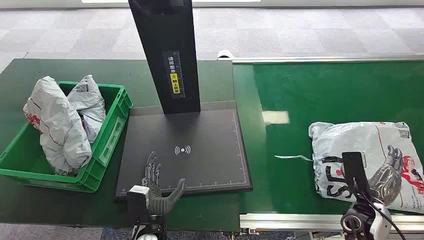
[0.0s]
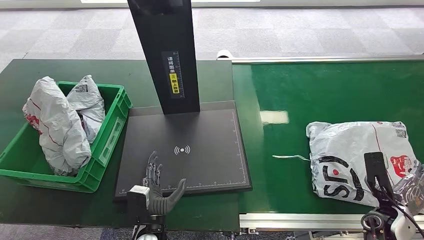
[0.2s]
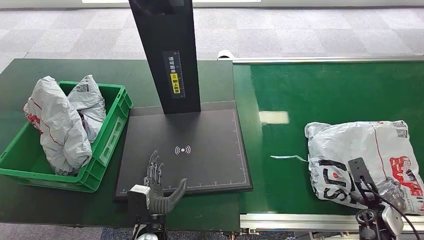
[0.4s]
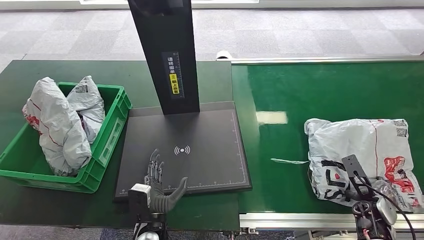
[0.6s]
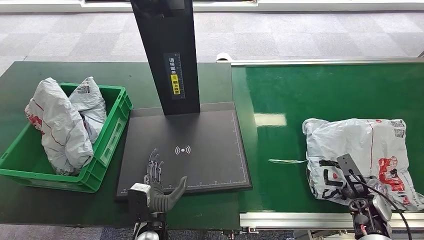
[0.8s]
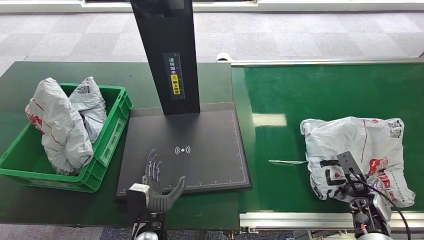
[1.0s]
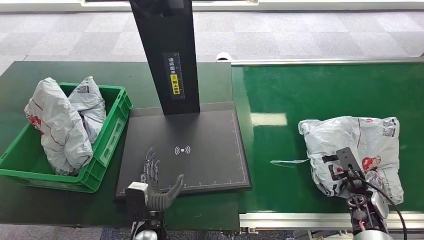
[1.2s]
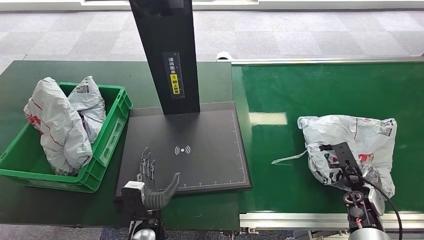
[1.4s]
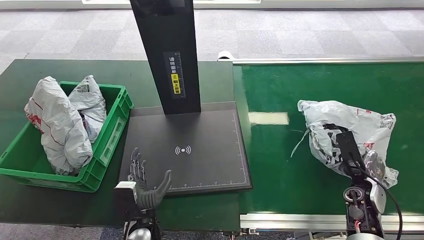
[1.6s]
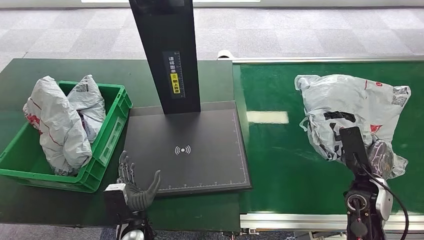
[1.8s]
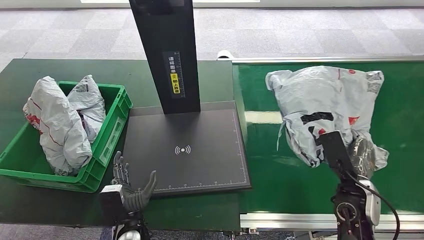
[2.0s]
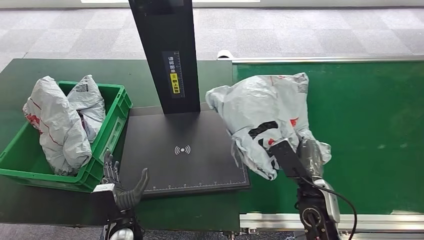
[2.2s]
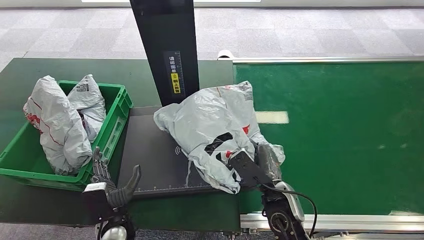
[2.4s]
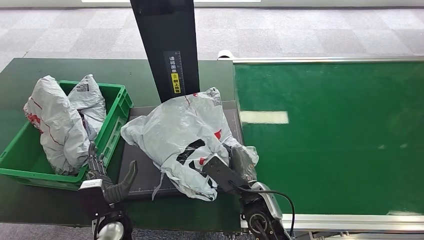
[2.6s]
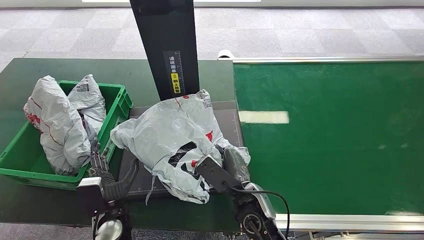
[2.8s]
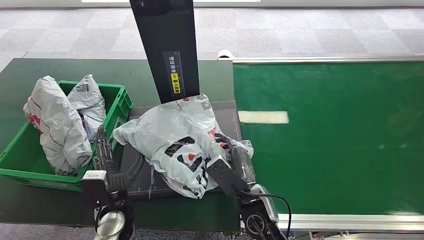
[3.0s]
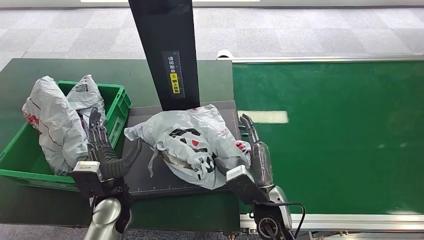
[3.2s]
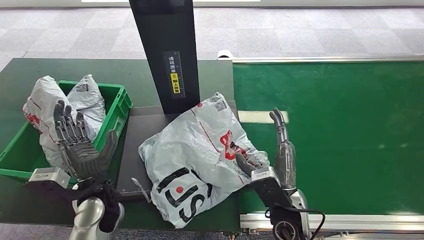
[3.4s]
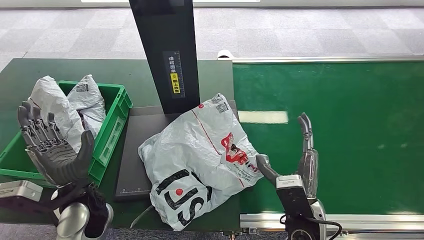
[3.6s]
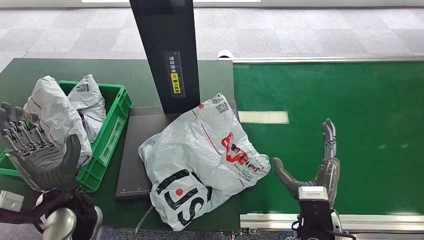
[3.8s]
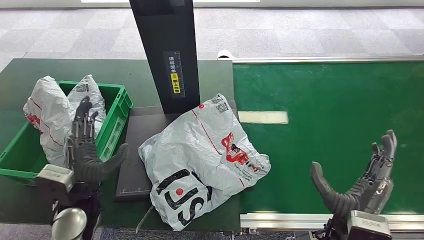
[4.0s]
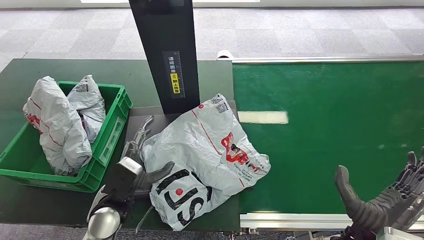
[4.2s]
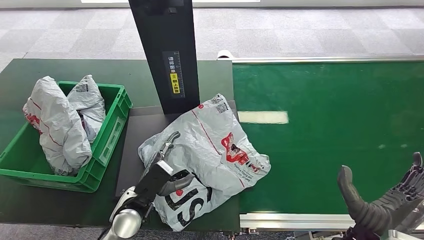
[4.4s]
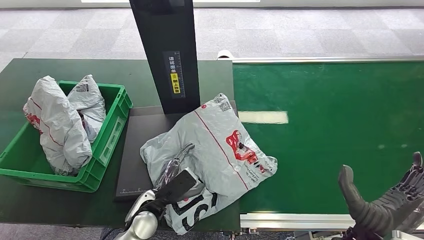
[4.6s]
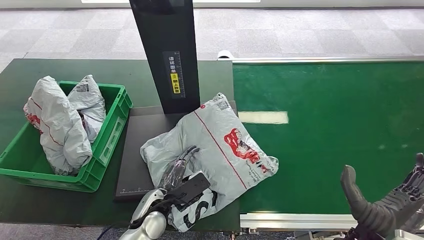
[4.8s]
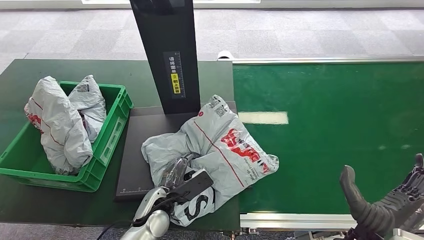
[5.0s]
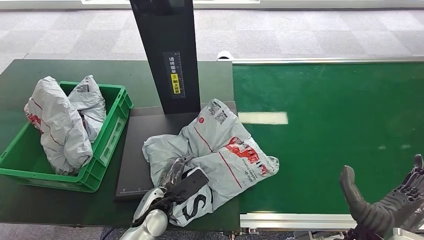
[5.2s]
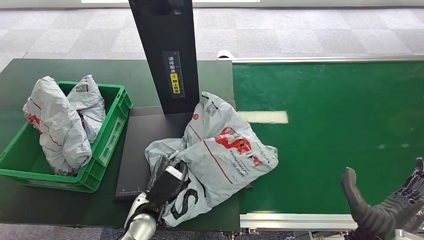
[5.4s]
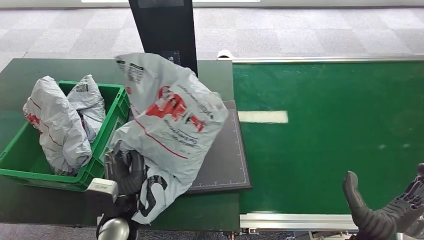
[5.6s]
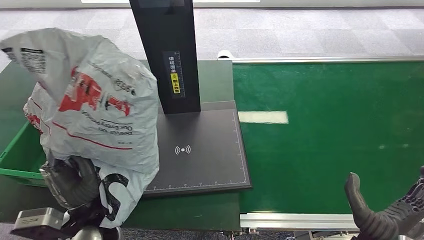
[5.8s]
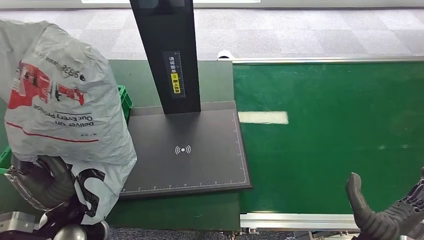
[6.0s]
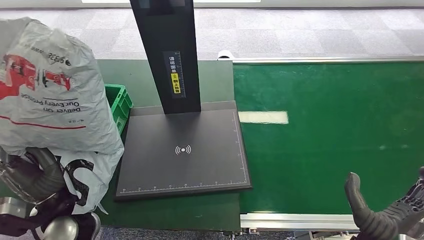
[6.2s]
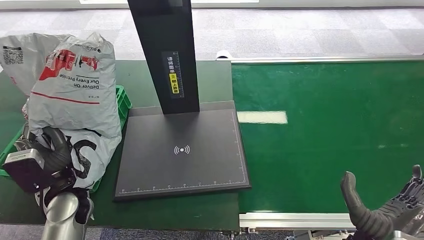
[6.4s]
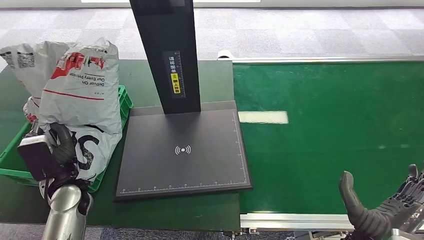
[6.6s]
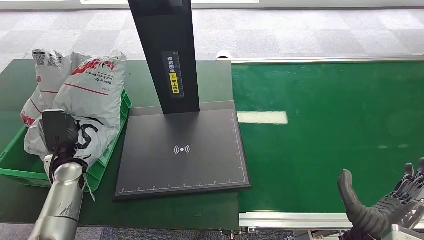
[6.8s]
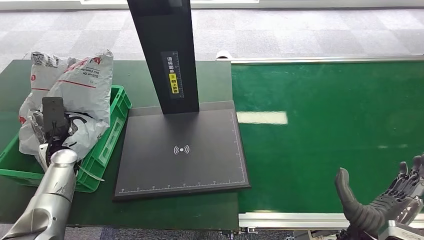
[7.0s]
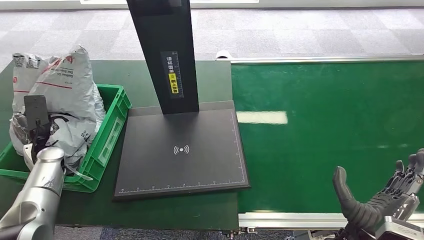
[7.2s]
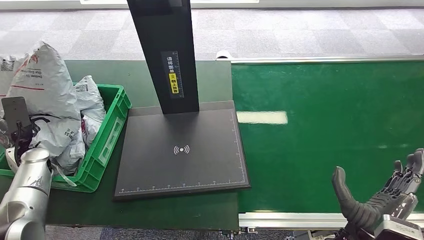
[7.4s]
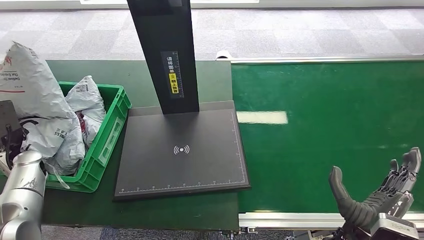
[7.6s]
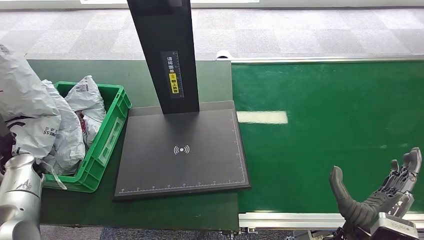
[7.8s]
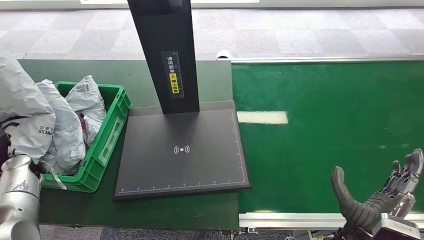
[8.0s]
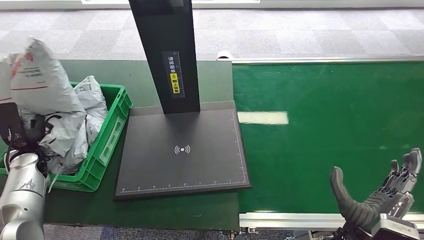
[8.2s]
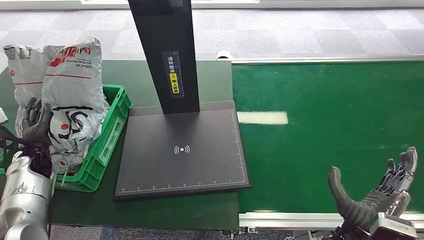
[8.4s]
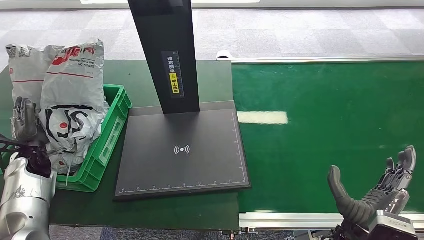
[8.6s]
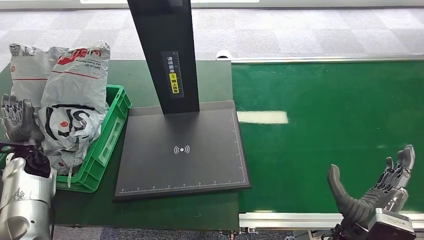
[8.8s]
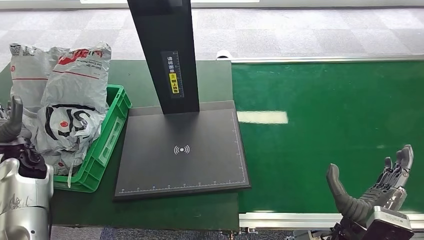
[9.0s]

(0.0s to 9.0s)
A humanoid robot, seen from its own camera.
Step, 0.0s - 1.8s: Pick up the package from the conveyor belt.
Step, 2.0s - 4.0s: Place the package onto the inbound machine.
Step, 4.2s - 6.8s: Pick up the package from the inbound machine.
Step, 7.0s - 9.0s: Place the package into the parcel locker.
3.0s - 4.4s: The left hand travels upward and back again, approximately 10 cm each way. The right hand shifts roughly 20 cm to the right, backward and upward.
